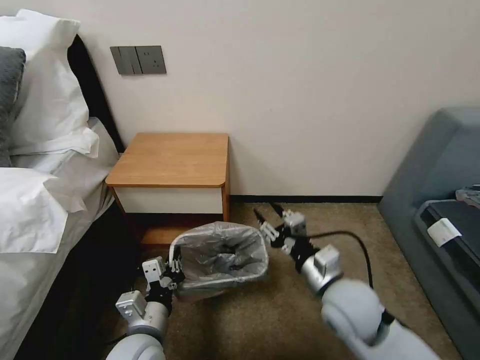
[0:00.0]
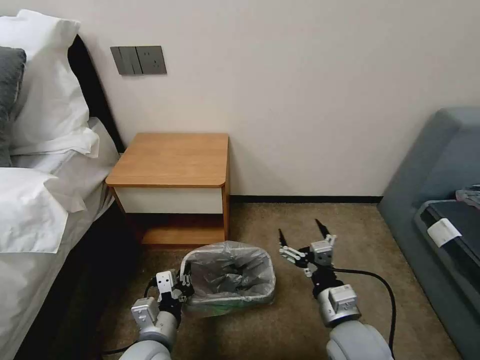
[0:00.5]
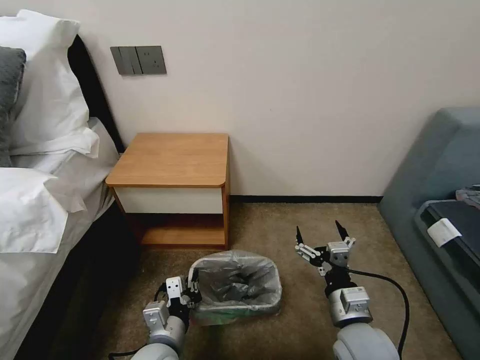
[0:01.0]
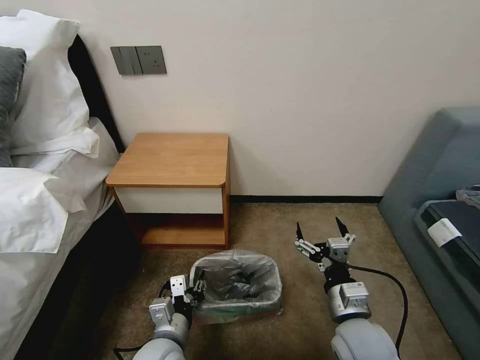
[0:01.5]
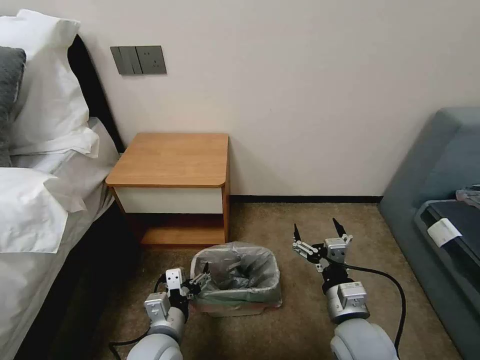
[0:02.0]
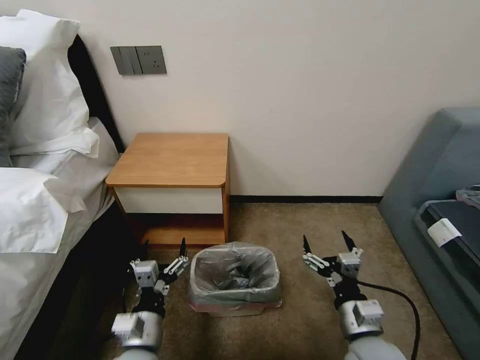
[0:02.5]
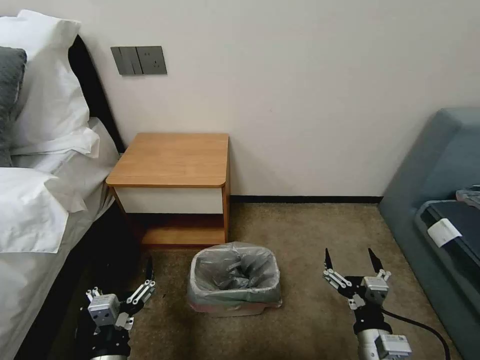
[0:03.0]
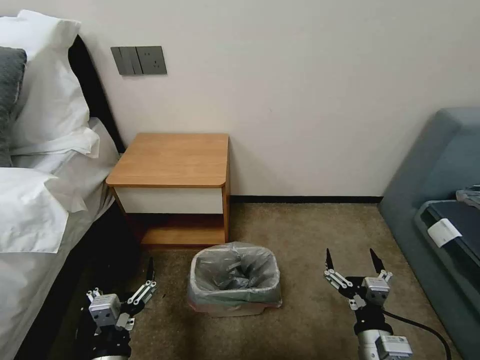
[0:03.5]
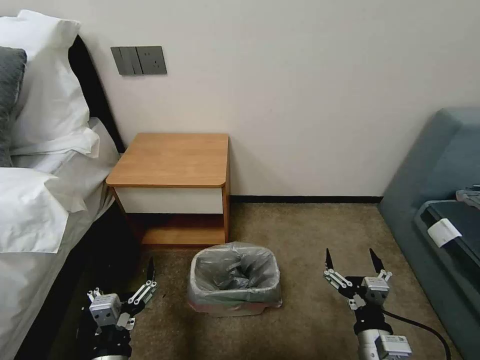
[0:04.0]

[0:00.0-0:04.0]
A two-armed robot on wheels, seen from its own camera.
Task of the whole recording: Pick up the garbage bag from the table and place it over the trash can.
0:00.0 to 0:02.0: The left gripper opens its fingers. Meanwhile the right gripper moves roughly 5 cm, and opens up.
0:02.0 to 0:04.0: The left gripper shifts roughly 10 cm backward and to the left; the right gripper shifts about 5 cm backward.

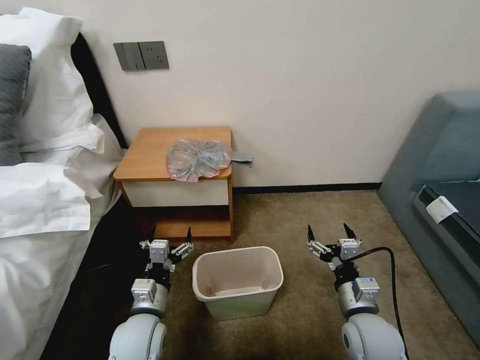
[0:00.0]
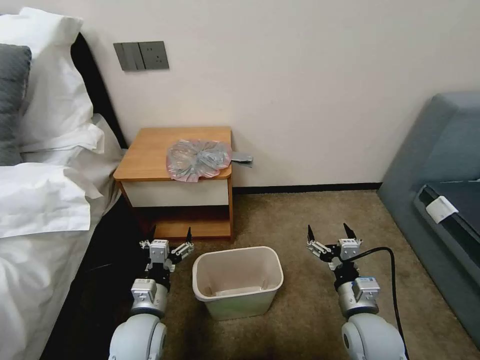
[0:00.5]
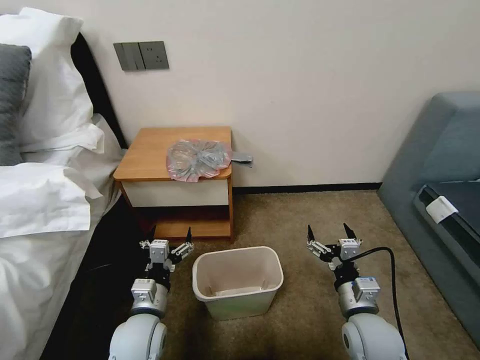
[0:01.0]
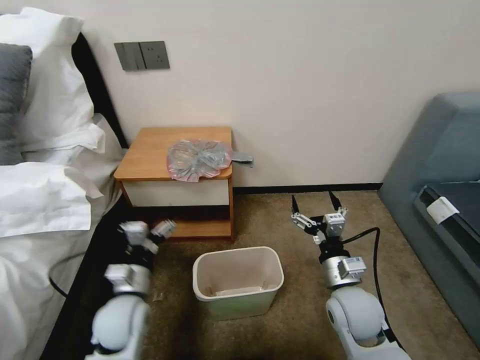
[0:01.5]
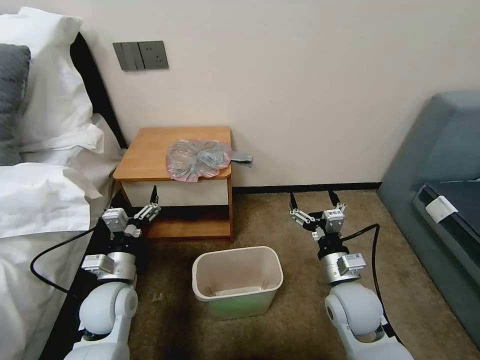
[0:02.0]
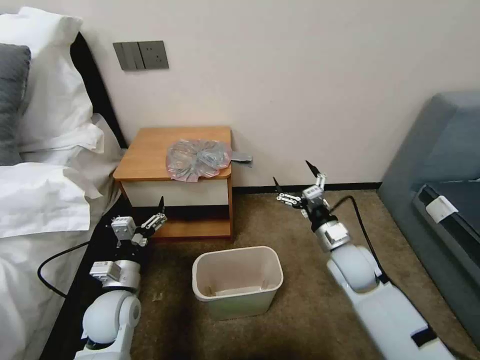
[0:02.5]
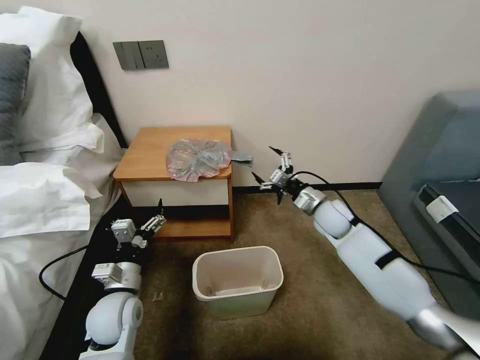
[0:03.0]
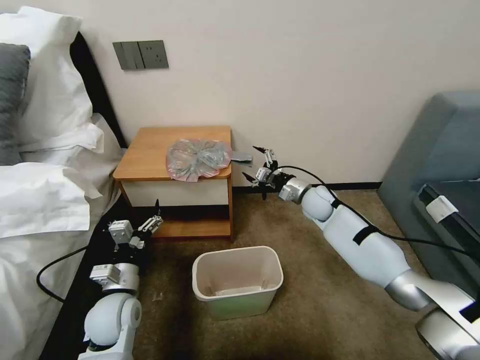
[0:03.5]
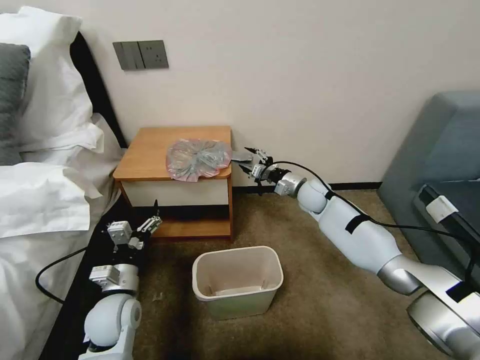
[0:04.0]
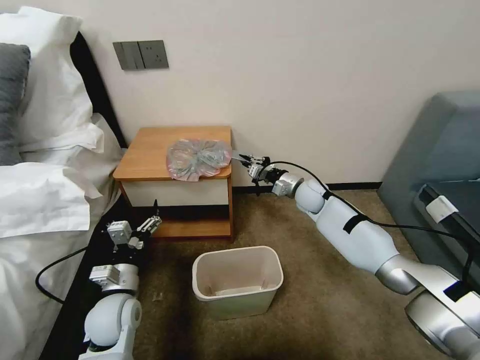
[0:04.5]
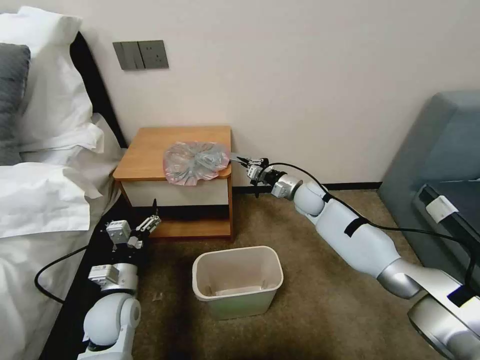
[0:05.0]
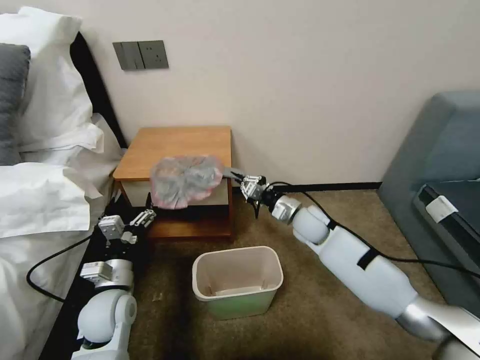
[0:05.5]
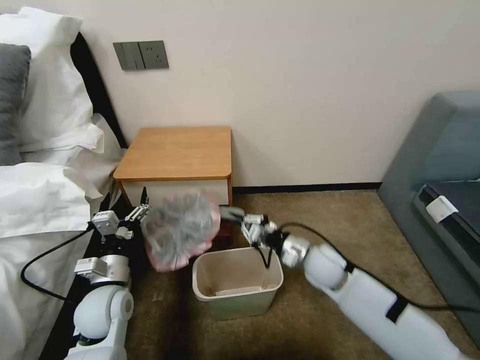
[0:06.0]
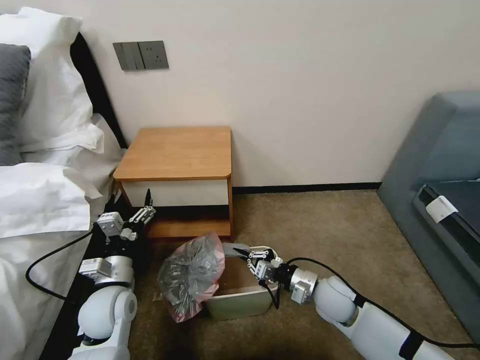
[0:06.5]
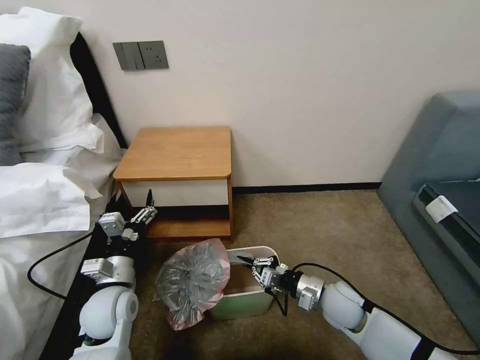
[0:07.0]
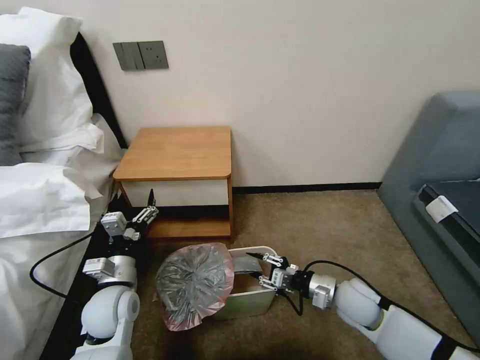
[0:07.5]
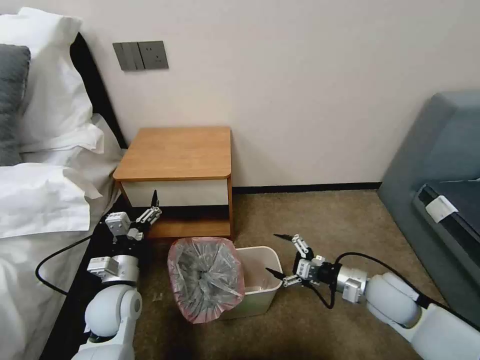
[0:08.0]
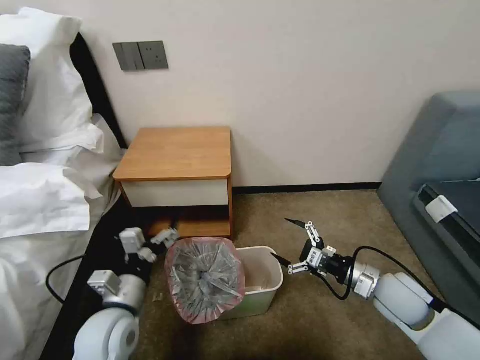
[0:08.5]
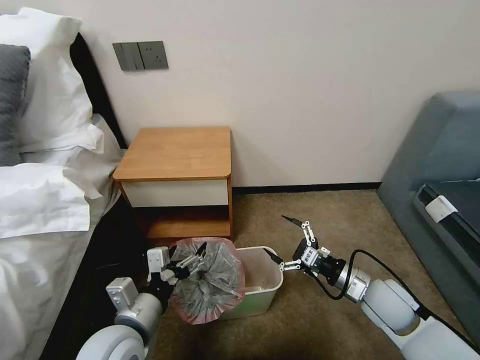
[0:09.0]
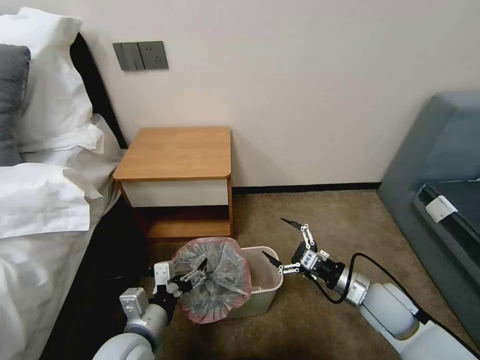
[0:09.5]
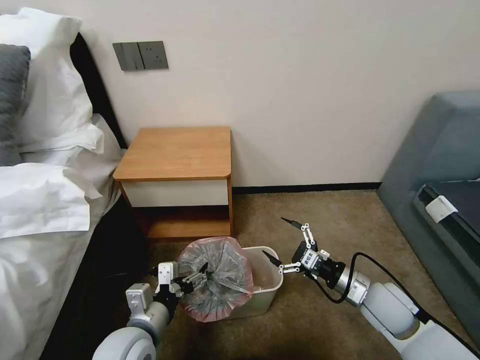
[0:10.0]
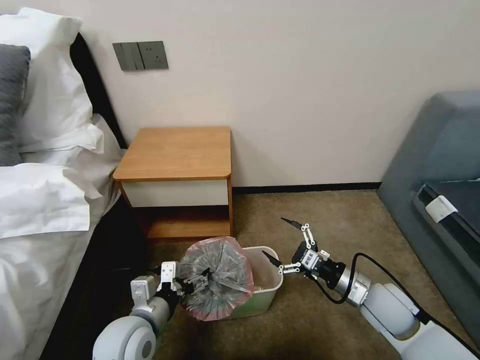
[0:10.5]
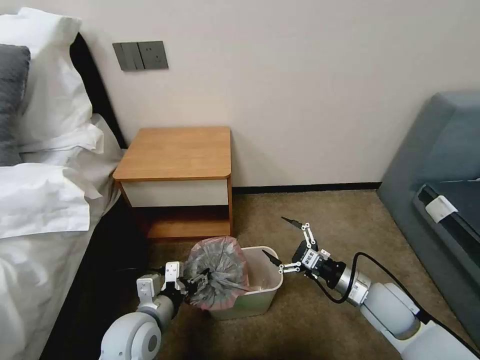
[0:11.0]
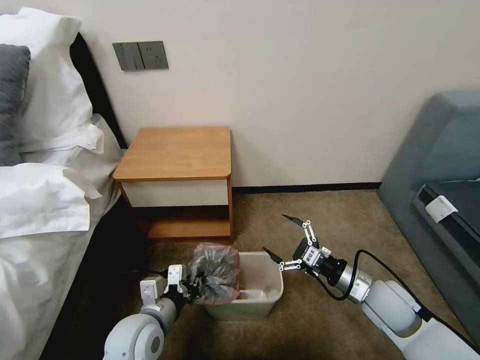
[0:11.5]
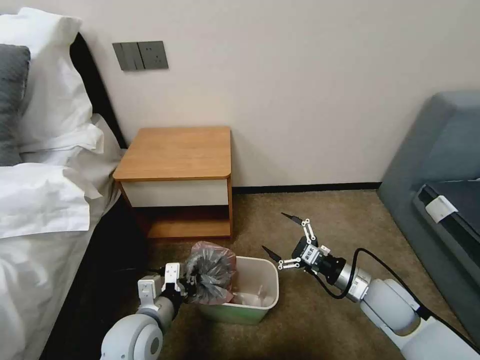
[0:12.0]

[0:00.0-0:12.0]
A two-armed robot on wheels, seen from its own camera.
Task of the whole recording: Pick up the garbage bag from the table and place it over the trash can.
0:02.0 to 0:04.0: The right gripper travels forward by some 30 cm.
0:04.0 to 0:06.0: The right gripper travels backward by approximately 20 cm, and closes up.
0:06.0 to 0:08.0: The right gripper travels to the right and backward by approximately 15 cm, and opens.
0:08.0 to 0:10.0: The left gripper travels backward and to the right by some 10 cm.
0:10.0 to 0:12.0: The left gripper closes its fingers.

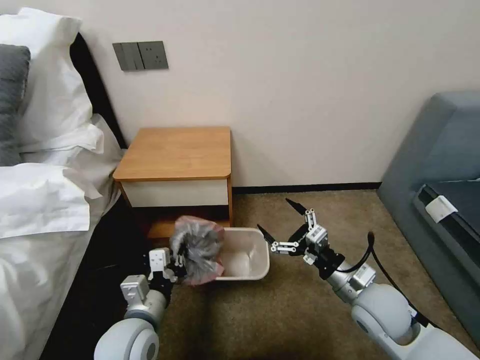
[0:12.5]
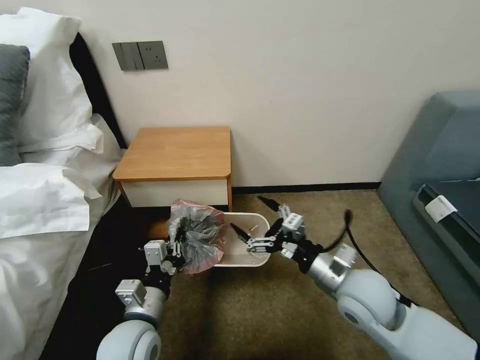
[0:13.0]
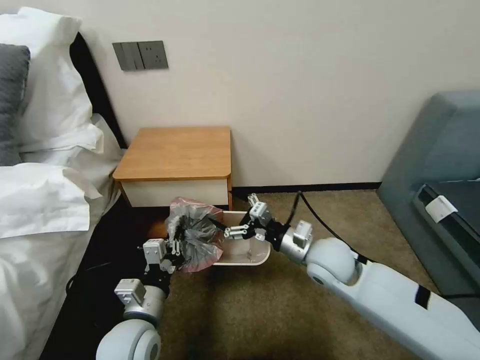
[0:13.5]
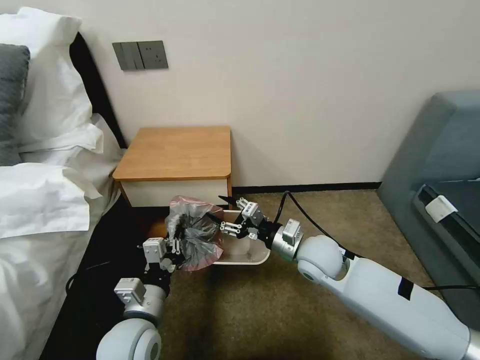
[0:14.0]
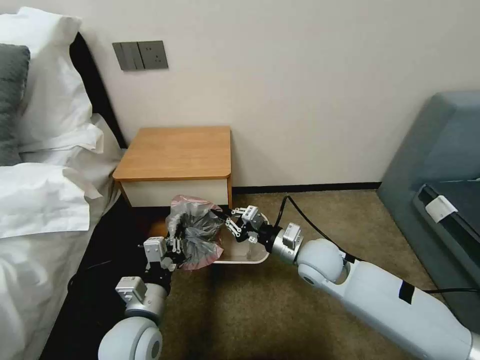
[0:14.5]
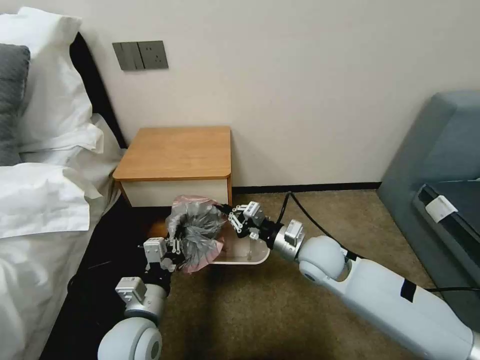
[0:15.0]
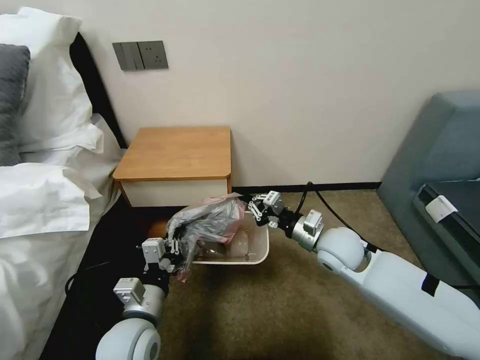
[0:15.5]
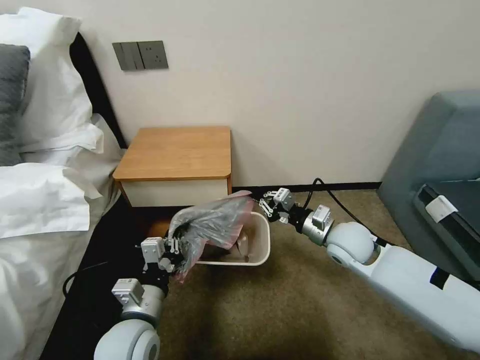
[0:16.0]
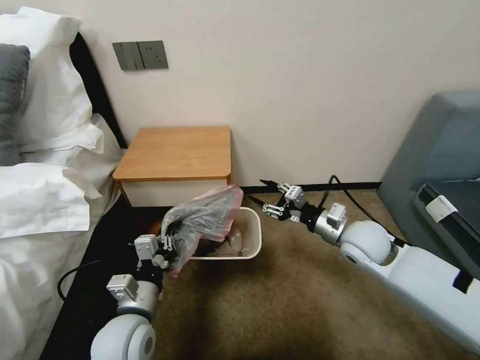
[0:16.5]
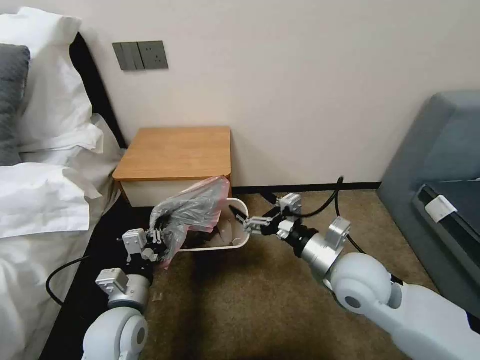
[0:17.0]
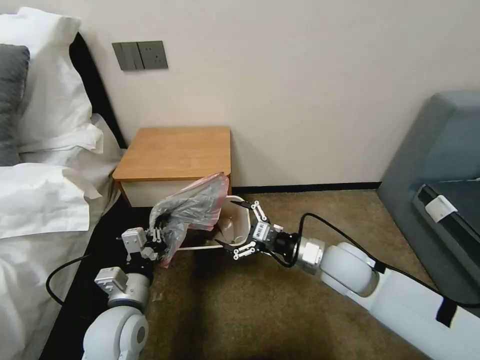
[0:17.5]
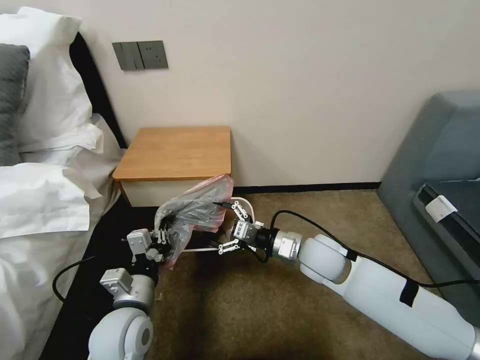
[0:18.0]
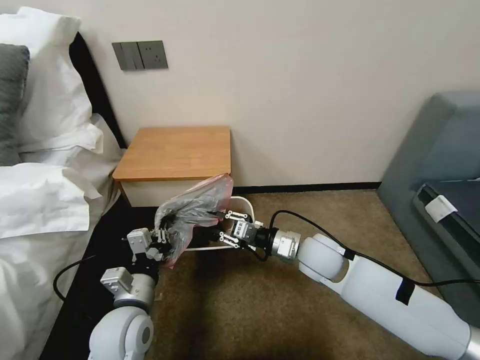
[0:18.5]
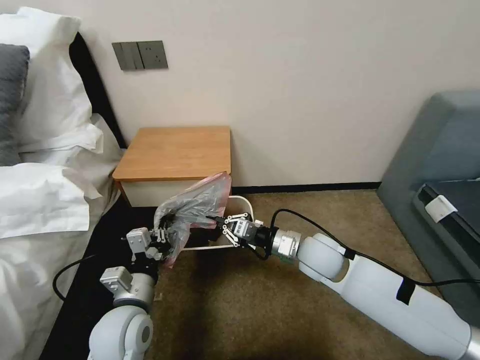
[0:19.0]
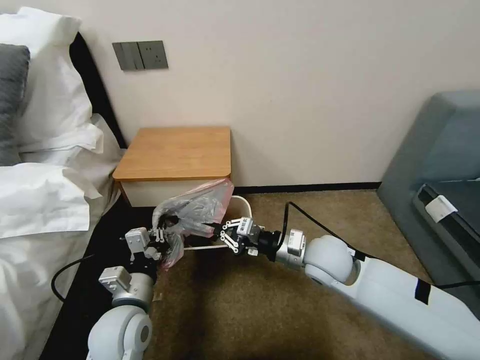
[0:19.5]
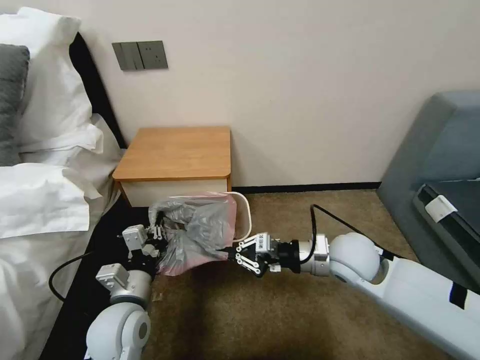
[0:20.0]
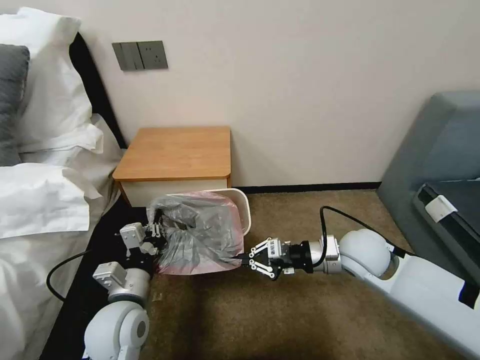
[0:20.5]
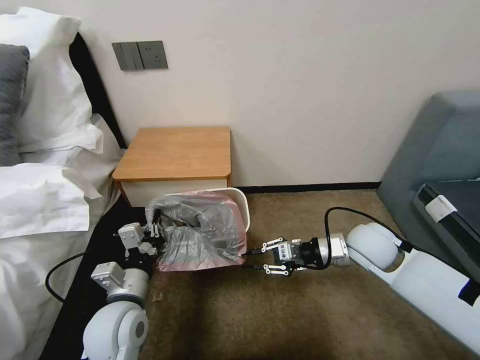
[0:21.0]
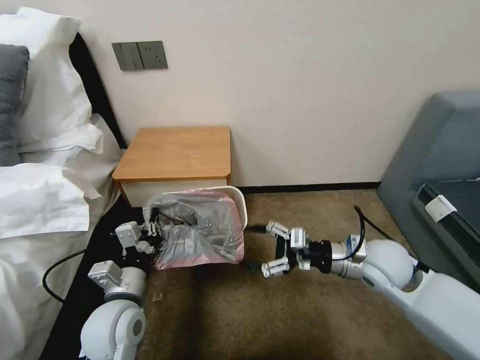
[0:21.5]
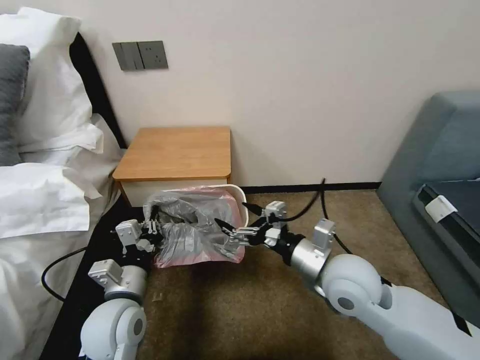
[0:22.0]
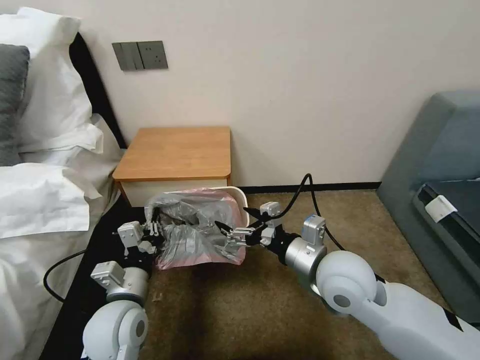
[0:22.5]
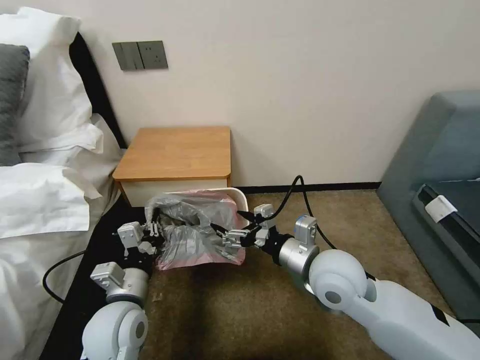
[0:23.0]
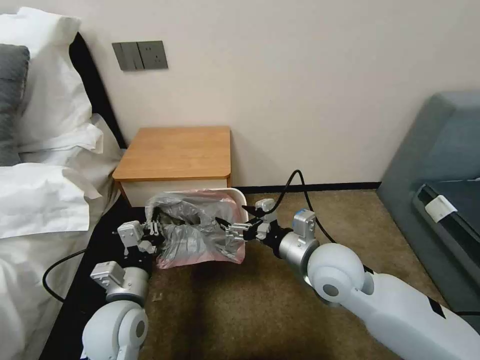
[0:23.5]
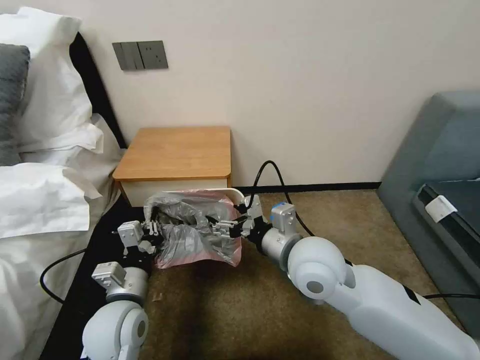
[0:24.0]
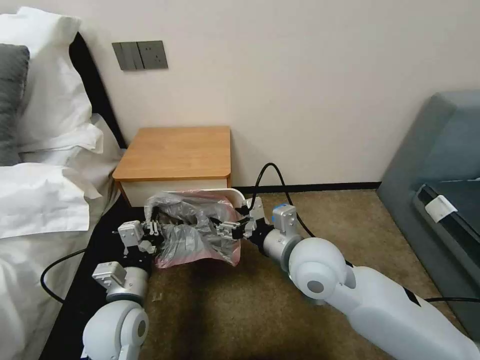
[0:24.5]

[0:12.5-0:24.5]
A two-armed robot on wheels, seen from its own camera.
Task of the whole recording: Pick up the garbage bag from the table and place it over the trash can.
0:12.5 to 0:14.5: The right gripper travels forward and to the left by roughly 15 cm, and closes.
0:14.5 to 0:16.5: The right gripper is displaced to the right by about 10 cm, and opens up.
0:16.5 to 0:18.5: The right gripper goes some 10 cm to the left, and opens, then closes once more.
0:18.5 to 0:20.5: The right gripper goes roughly 10 cm to the right.
0:20.5 to 0:22.5: The right gripper is displaced to the left and backward by about 10 cm, and opens up.
0:22.5 to 0:24.5: The right gripper is displaced to the left by roughly 5 cm.
